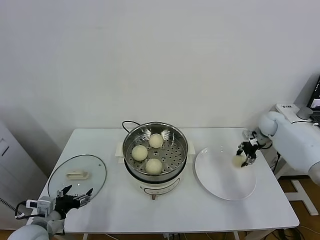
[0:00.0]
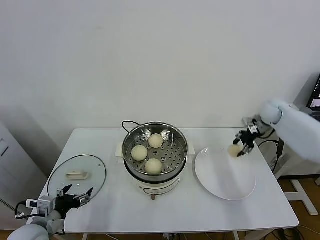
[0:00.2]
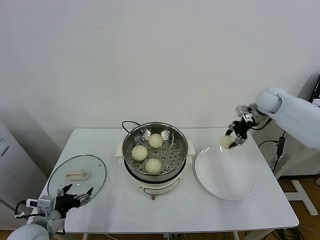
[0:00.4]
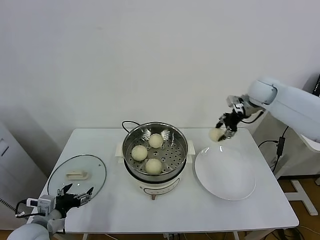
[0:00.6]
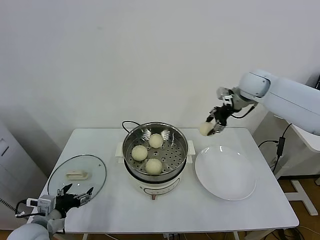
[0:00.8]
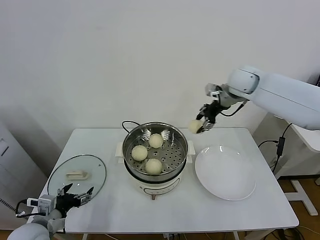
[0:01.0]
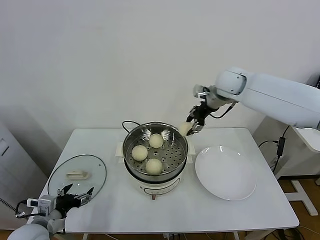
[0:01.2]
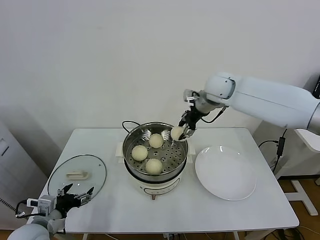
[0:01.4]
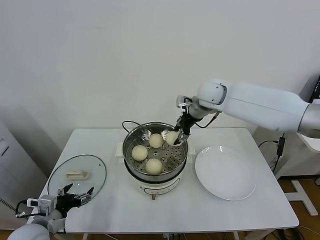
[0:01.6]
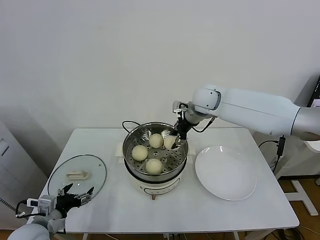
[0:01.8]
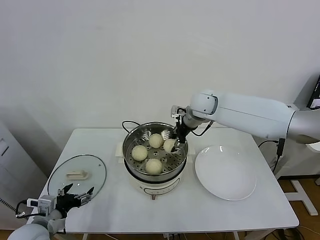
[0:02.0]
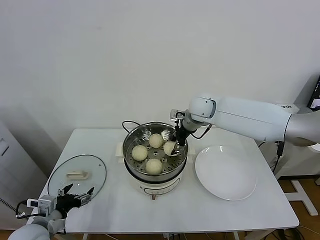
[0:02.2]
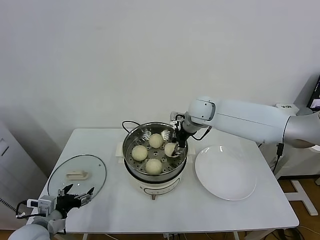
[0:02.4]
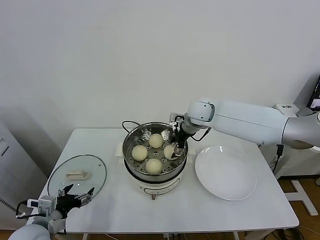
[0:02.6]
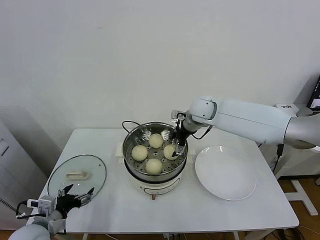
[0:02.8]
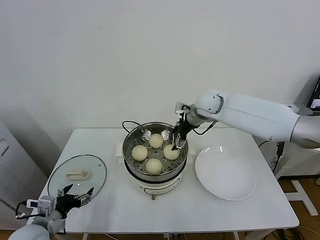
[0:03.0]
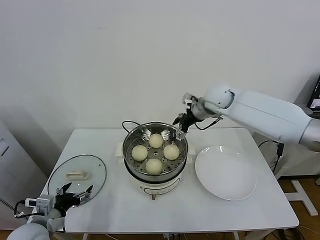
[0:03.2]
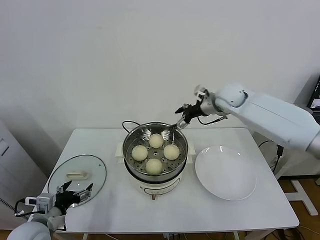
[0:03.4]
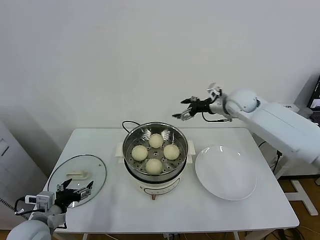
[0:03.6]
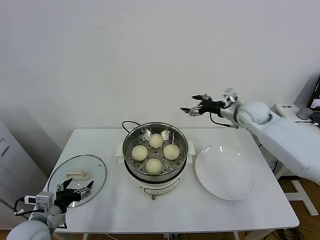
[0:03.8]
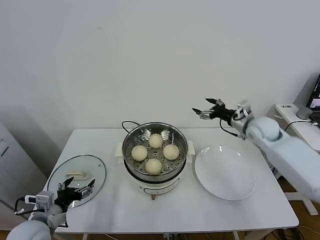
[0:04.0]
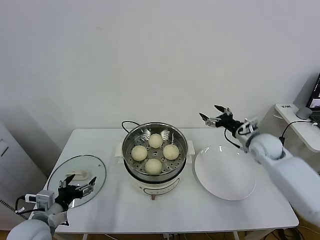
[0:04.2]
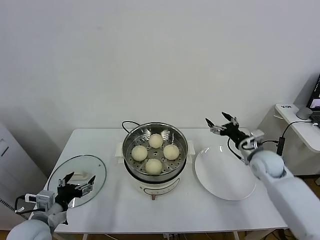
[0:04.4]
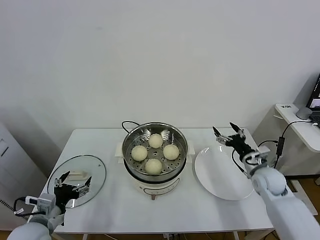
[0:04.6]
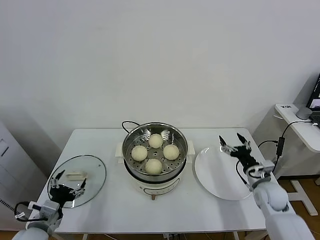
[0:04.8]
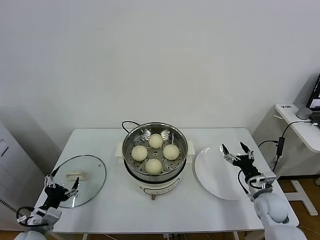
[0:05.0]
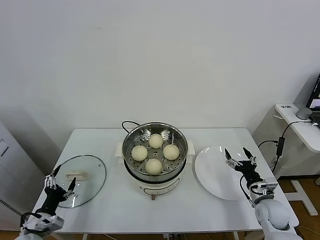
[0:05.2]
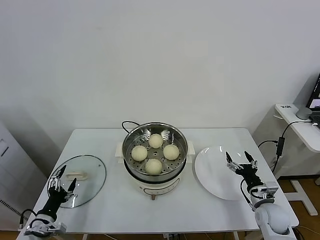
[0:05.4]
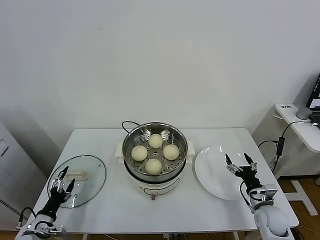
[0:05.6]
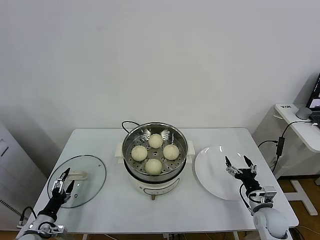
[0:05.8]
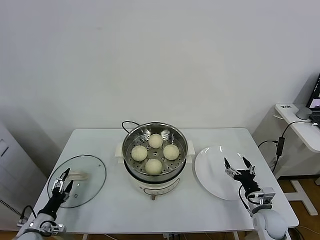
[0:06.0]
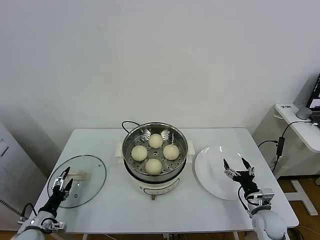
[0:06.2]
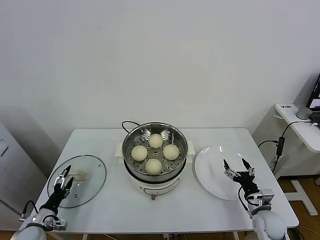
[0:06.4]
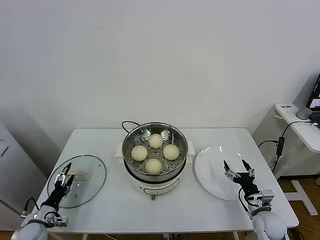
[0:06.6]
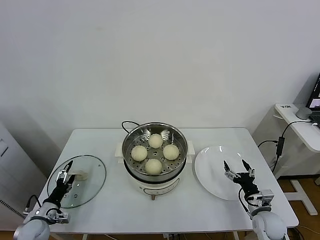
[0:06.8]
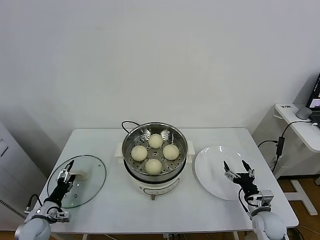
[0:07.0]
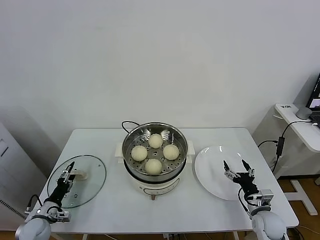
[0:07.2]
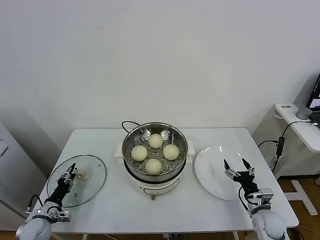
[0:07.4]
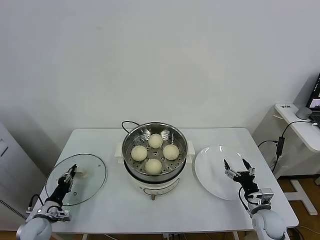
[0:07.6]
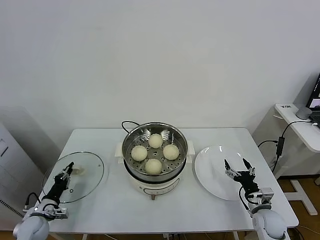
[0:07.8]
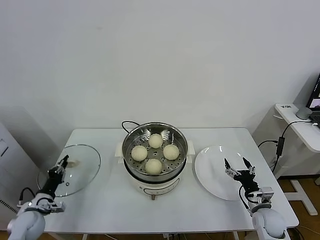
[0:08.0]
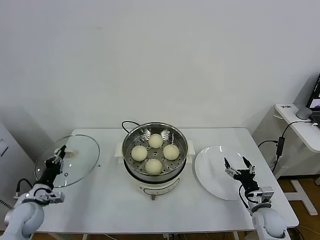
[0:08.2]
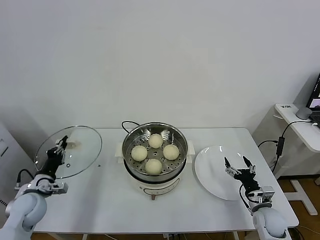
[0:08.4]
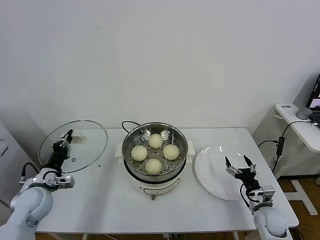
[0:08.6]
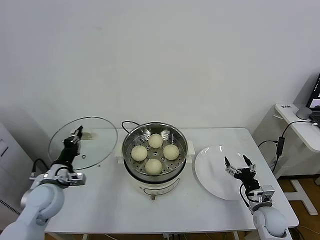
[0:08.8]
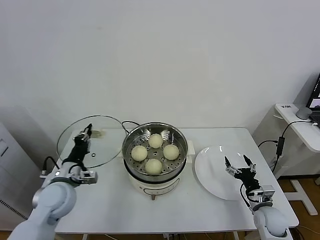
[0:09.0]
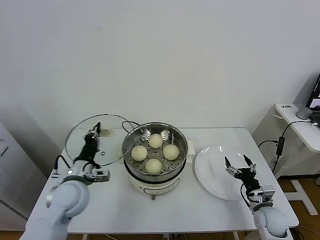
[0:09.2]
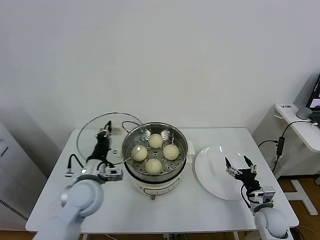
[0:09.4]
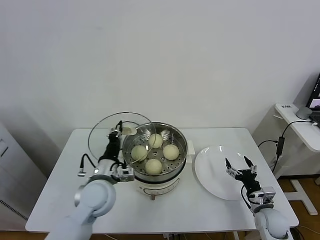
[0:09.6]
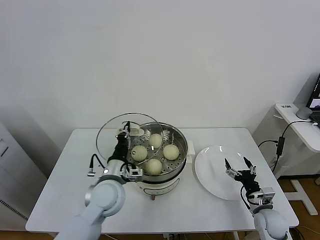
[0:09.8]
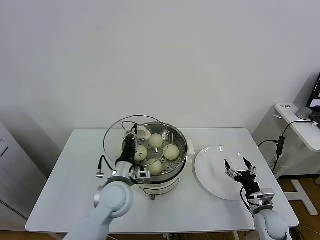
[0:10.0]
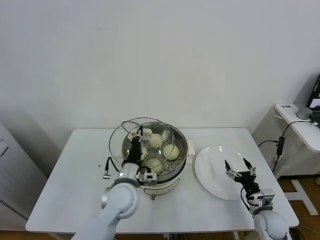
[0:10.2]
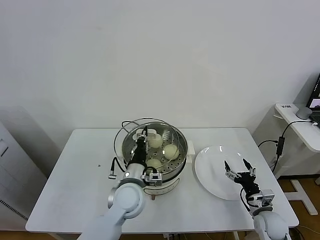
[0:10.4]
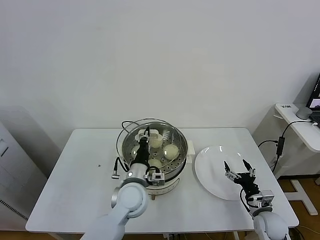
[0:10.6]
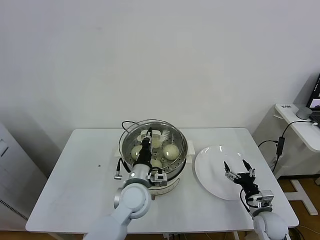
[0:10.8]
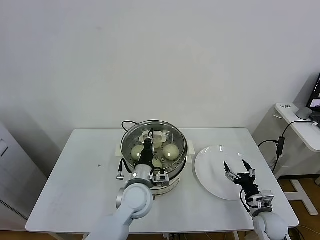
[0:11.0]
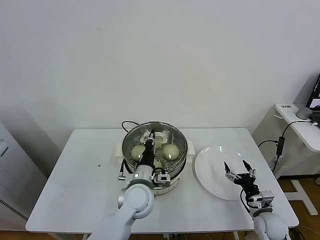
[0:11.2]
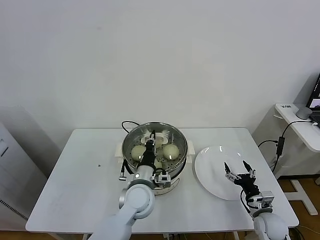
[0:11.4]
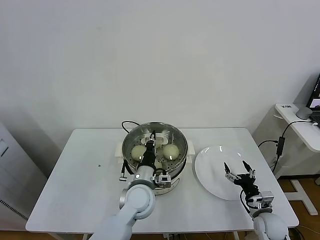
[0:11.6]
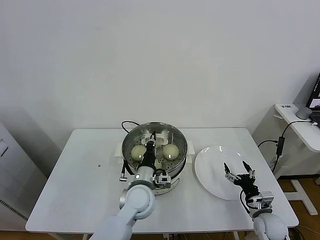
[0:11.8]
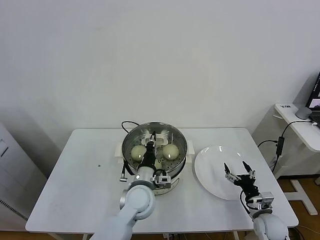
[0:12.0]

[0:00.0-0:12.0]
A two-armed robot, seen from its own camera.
Task of the whole recording: take steamed baozi put them in steamer.
Step, 0:00.0 to 0:02.8: Place the baozi on the steamer with right gripper.
Step, 0:03.0 to 0:07.8: Grasp the pot lid with left gripper.
0:00.0 to 0:01.6: The right gripper moves to the left and upward, roughly 30 cm.
0:01.6 to 0:03.0: The right gripper opens up.
0:03.0 to 0:04.4: The right gripper is displaced to the right, downward and backward by approximately 30 cm.
0:04.4 to 0:06.0: The left gripper goes approximately 20 cm downward and to the left, while the right gripper moves downward and backward, some 20 cm.
0:06.0 to 0:07.6: The left gripper shifts roughly 5 cm forward, and closes its fingers.
0:07.6 to 0:09.0: The left gripper travels upward and to the right by some 25 cm.
0:09.0 to 0:10.4: The left gripper heads to the right, covering about 20 cm.
0:10.4 to 0:12.0: The grippers make only small movements.

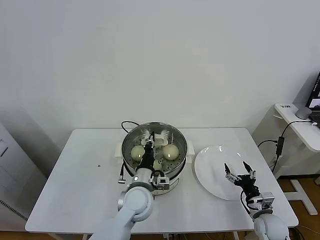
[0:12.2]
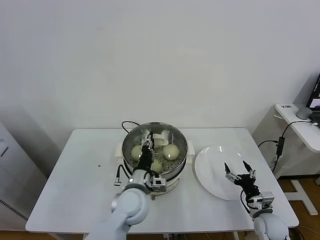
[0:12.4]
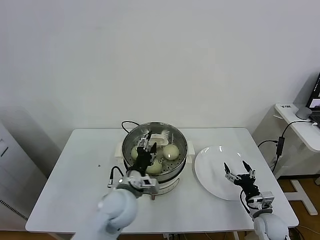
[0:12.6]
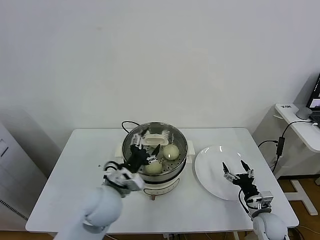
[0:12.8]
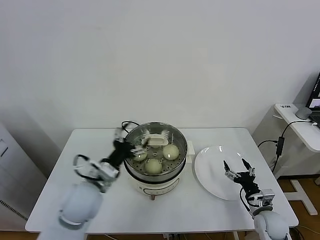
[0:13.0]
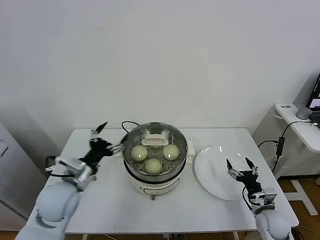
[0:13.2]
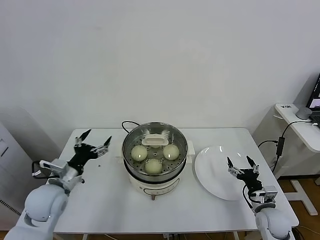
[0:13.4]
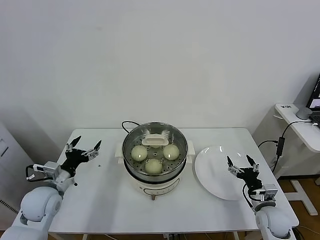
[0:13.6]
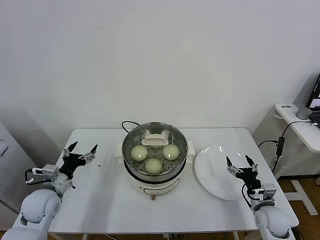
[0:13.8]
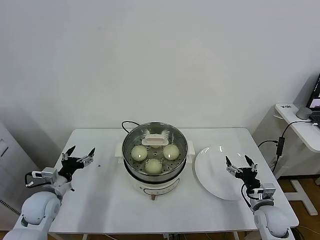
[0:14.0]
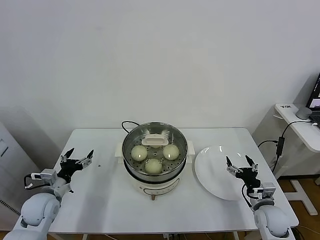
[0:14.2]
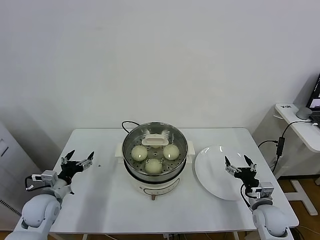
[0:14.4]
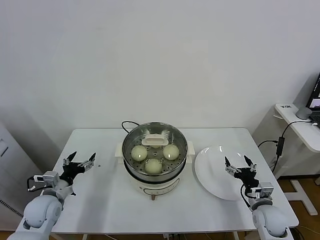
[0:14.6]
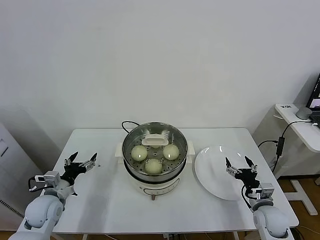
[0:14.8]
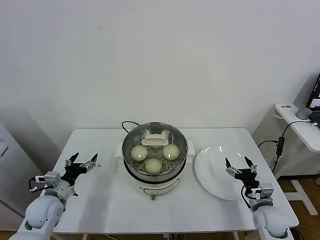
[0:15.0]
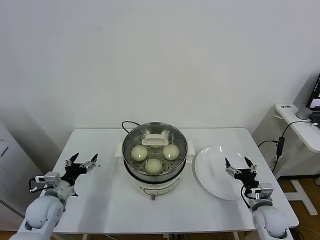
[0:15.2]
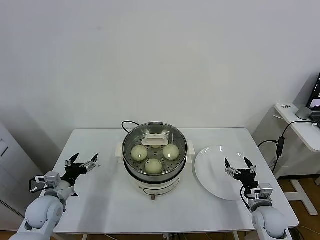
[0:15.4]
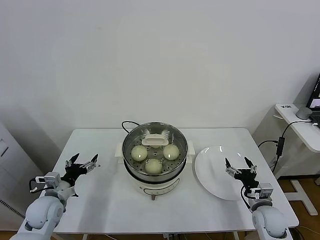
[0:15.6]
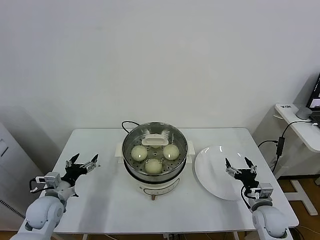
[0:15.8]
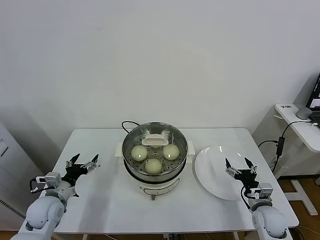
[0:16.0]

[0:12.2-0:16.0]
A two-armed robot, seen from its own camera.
Task of the whole recording: take steamed baozi put them in steamer.
0:12.2 to 0:13.4: The left gripper travels to the left by roughly 25 cm, and opens its fingers.
0:13.4 to 0:14.8: The left gripper goes about 10 cm downward and to the left.
0:14.8 to 0:16.0: Both grippers stay put.
